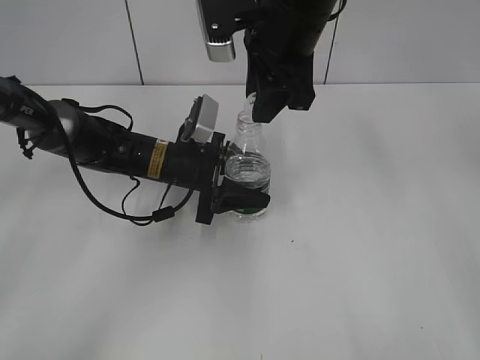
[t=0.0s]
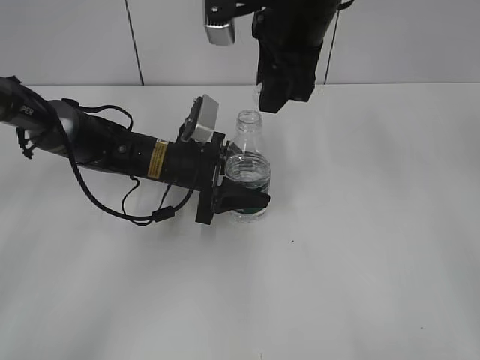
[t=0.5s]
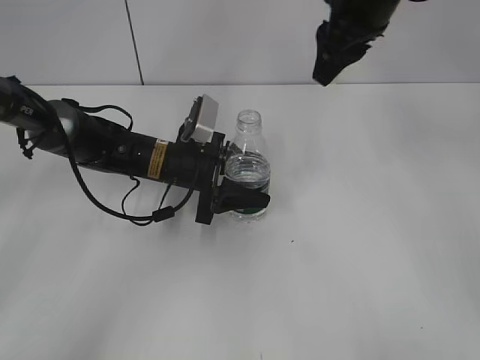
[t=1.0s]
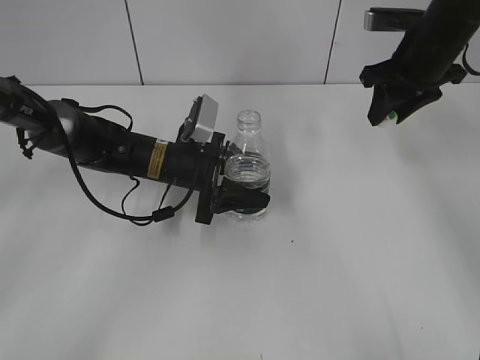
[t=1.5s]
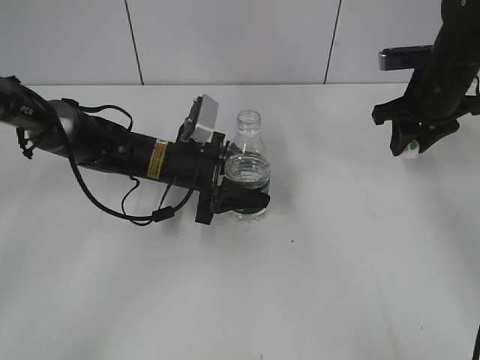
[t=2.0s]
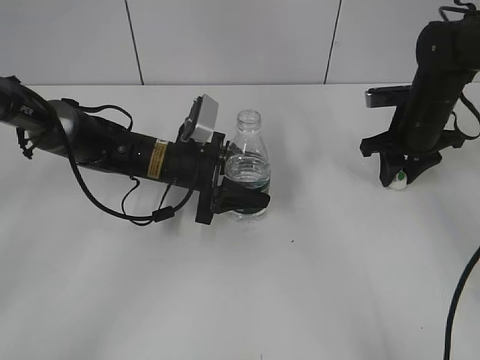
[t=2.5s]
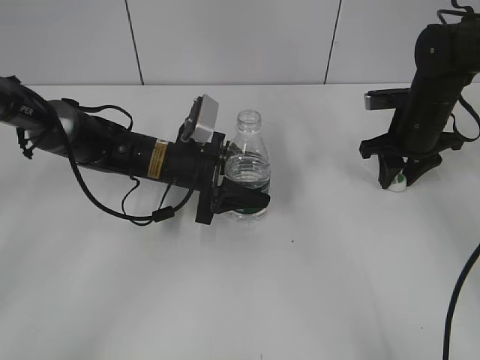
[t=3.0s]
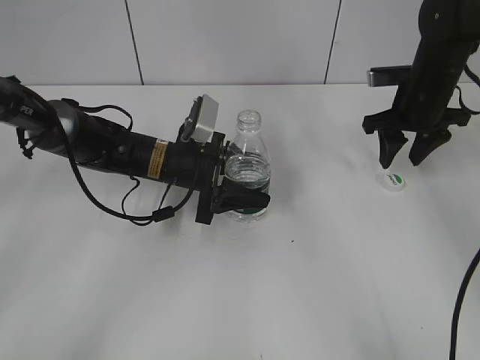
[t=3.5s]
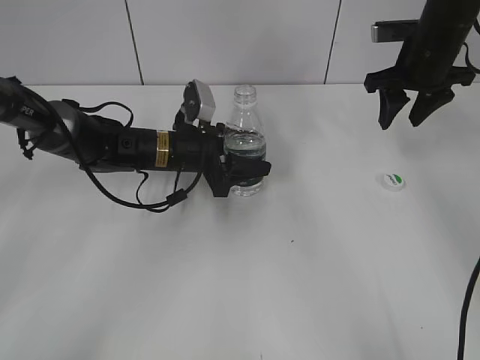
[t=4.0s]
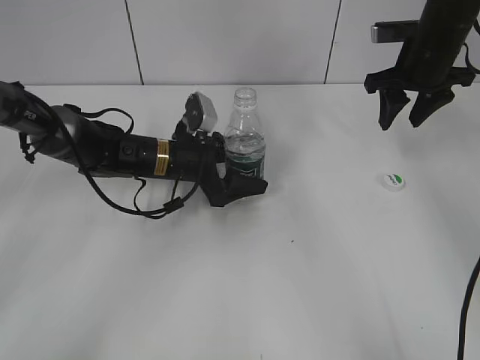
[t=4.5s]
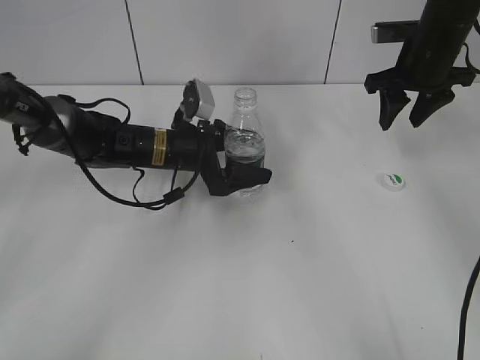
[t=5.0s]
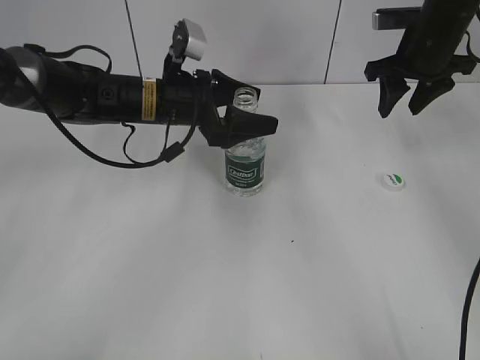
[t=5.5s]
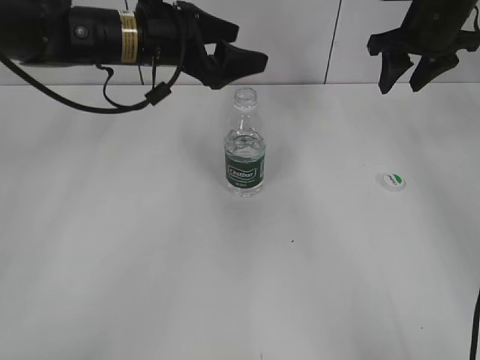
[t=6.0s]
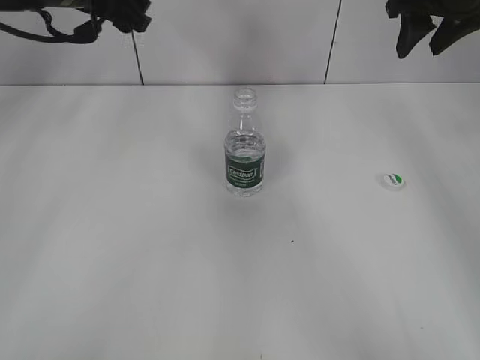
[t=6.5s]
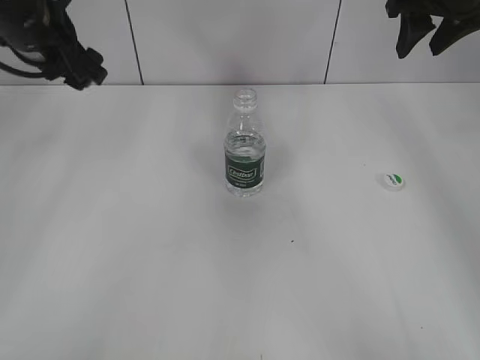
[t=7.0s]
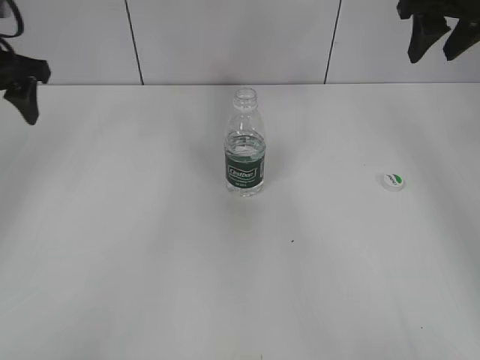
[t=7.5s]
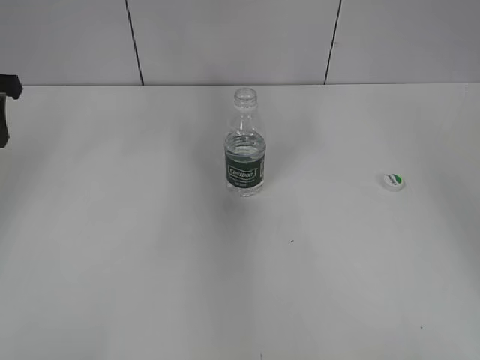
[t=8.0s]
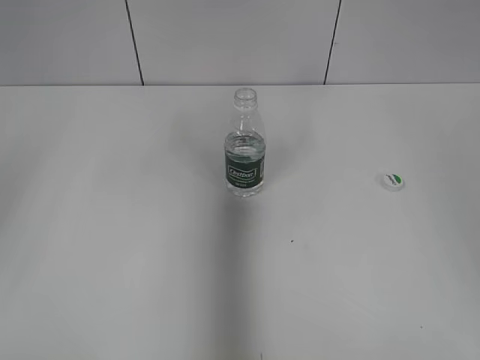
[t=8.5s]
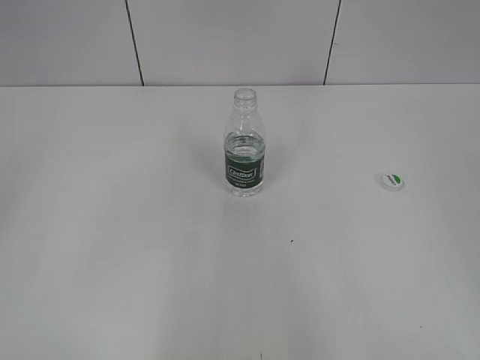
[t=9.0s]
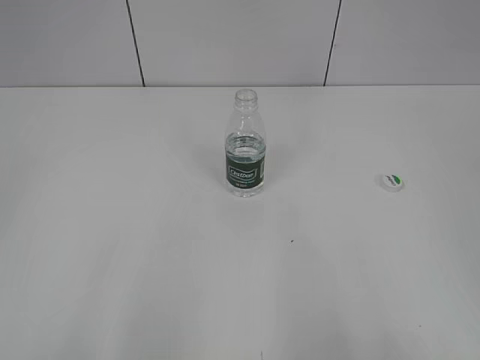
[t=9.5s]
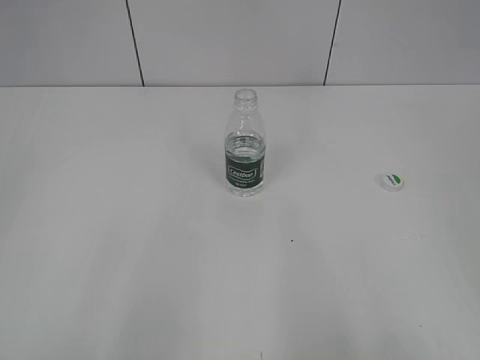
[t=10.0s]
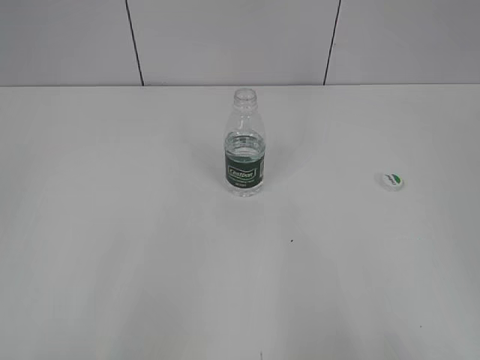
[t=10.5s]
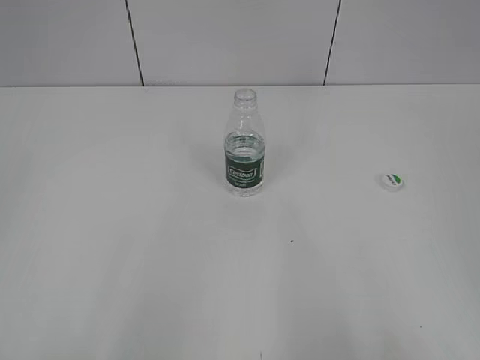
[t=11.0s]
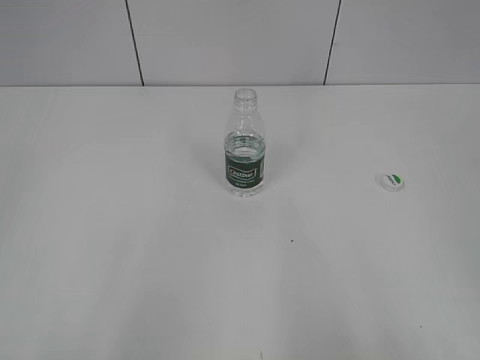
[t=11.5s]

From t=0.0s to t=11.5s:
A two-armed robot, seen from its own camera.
Step, from t=1.0s to t=3.5s: Place the bottle cap on the table with the right gripper.
Step, from t=4.0s to t=5.0s: Place the bottle on the table with the left gripper.
From t=0.0s to t=2.0s: The right gripper travels to the right and downward by some 25 cm.
From t=2.0s to t=4.0s: The right gripper travels downward and back again, roughly 5 cm each way, and opens up.
From t=4.0s to t=6.0s: The left gripper goes about 15 cm upward, and opens.
From t=6.0s to t=7.5s: The left gripper shifts roughly 20 cm to the left. The right gripper is displaced upward by about 5 cm.
From t=7.5s to t=9.5s: Both grippers travel together backward, about 40 cm. The left gripper closes.
